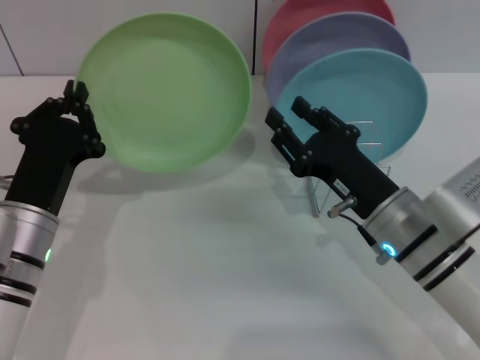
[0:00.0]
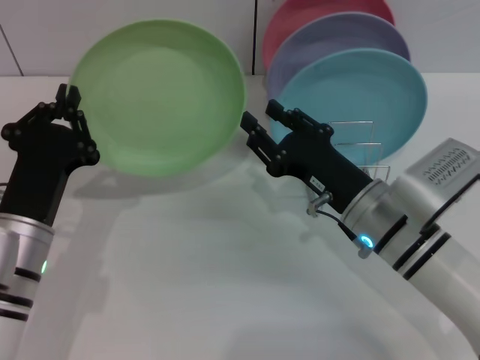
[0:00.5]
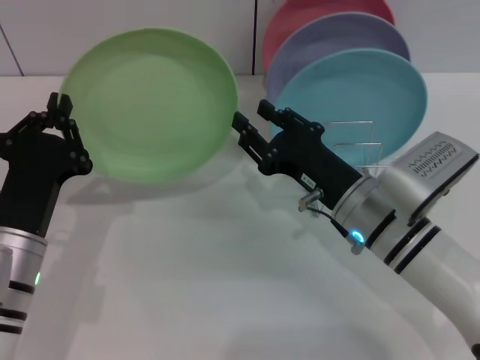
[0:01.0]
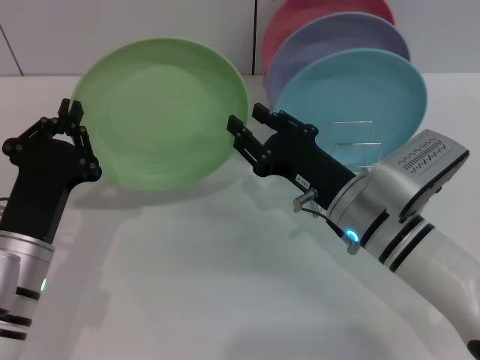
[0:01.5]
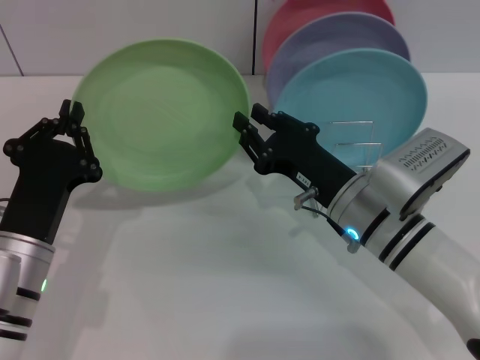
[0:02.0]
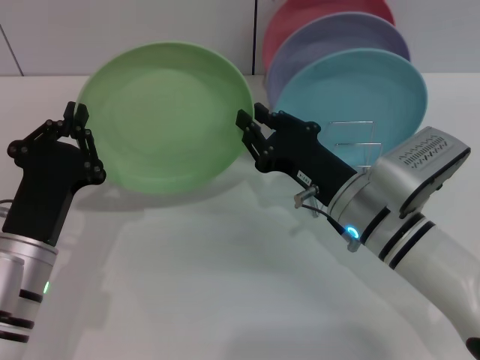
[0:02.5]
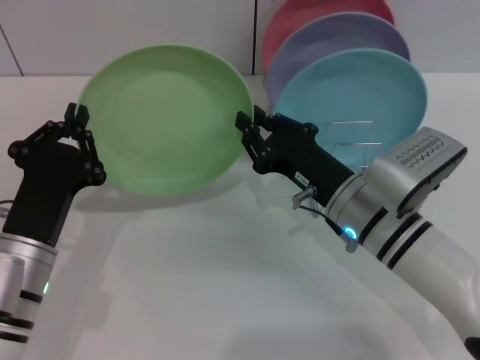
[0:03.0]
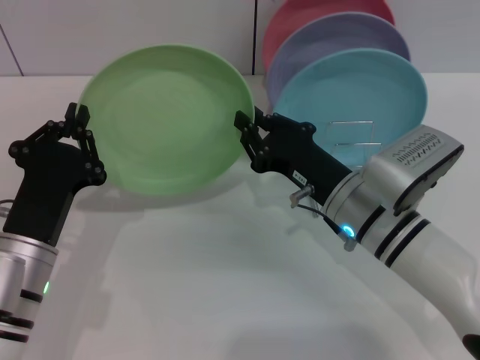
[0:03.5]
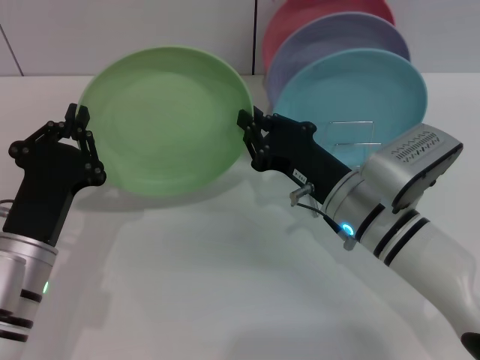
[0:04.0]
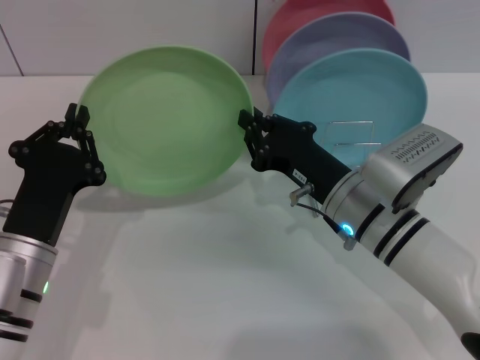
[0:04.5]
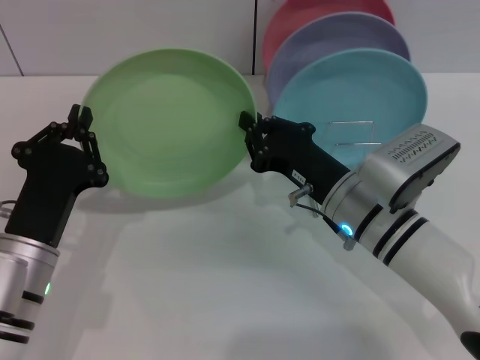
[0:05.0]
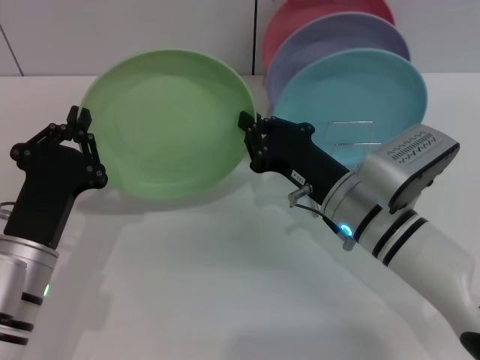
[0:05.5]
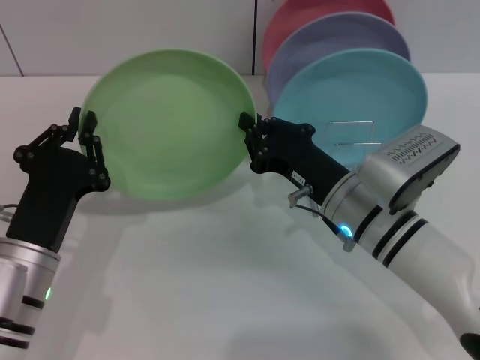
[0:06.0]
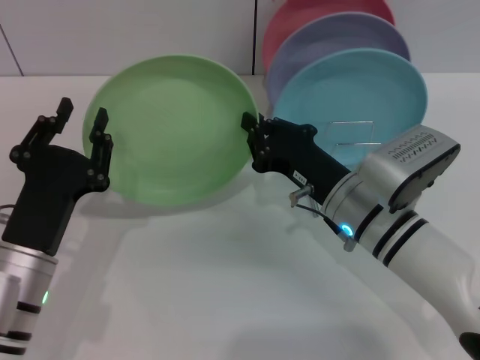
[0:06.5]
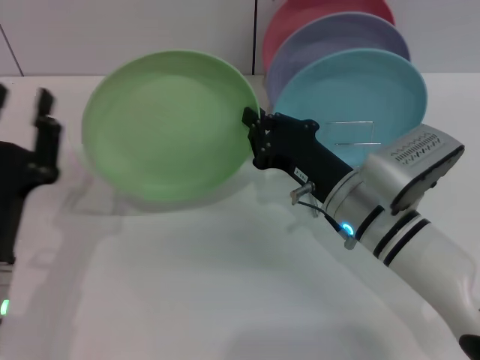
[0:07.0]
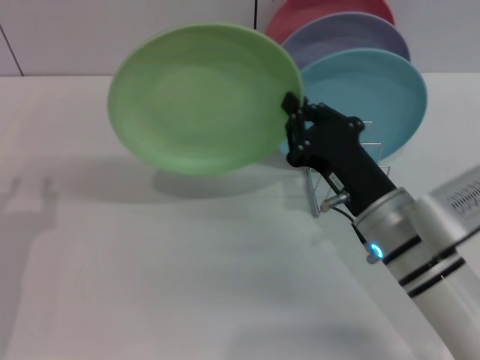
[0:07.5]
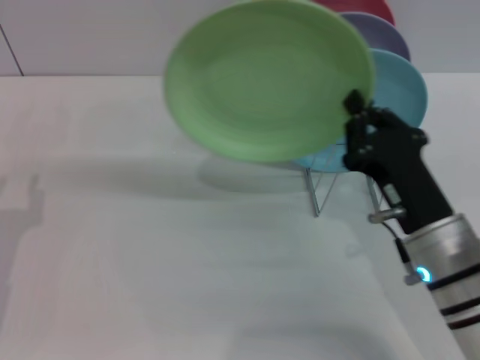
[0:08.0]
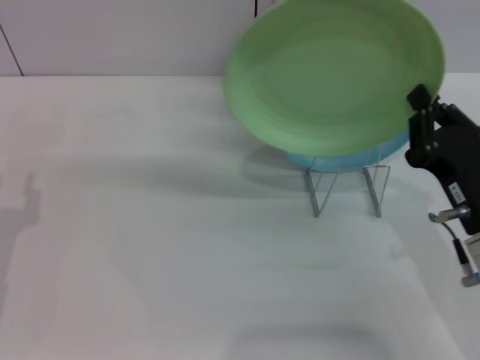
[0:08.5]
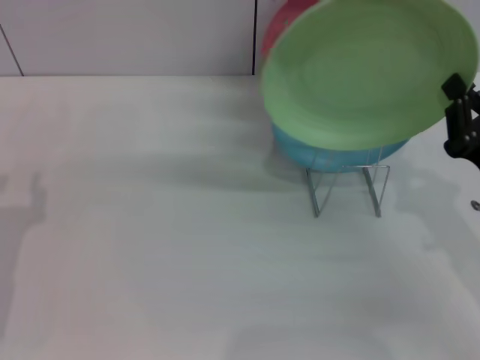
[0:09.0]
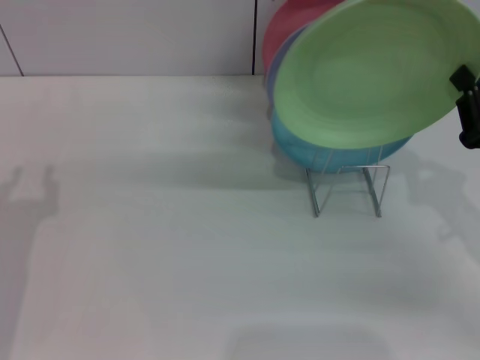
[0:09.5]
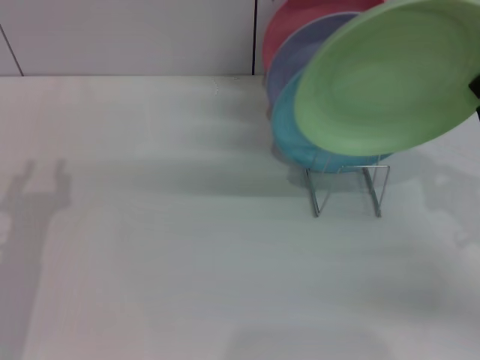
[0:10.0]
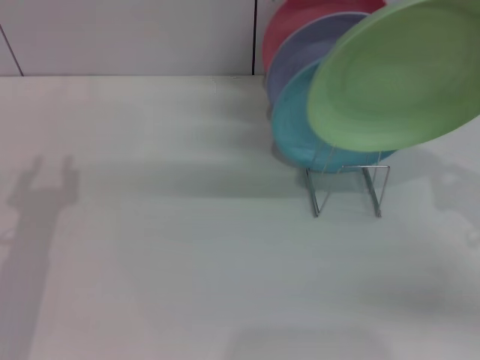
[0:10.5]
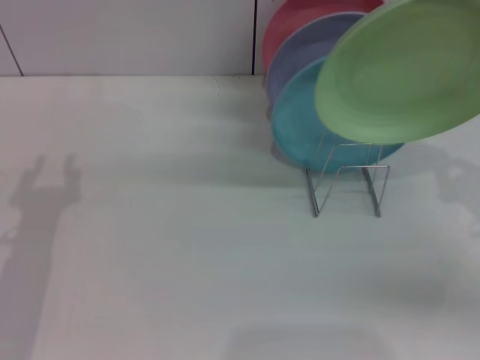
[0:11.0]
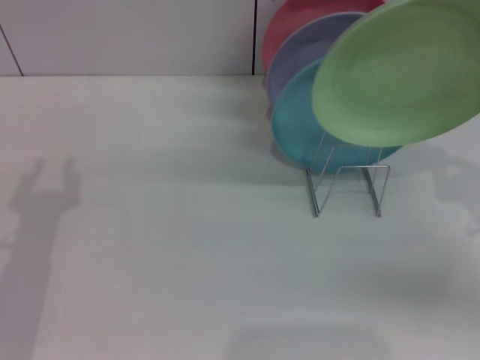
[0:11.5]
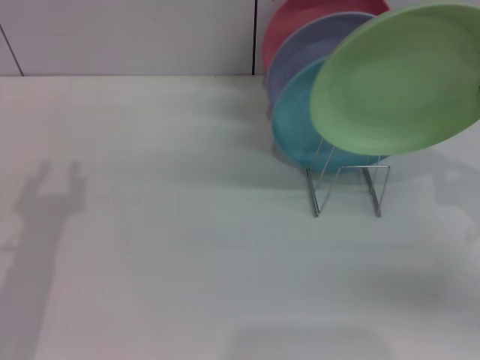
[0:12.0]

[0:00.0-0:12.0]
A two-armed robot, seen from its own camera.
Task of the whole recording: Grip the plate with one hand, pass it to the other, then set it on the shelf.
Step, 0:00.0 to 0:06.5: Pass the plate from the left gripper to the right gripper.
0:02.0 to 0:04.0: The right gripper closes.
0:04.0 to 0:06.0: Neither gripper changes place.
0:06.0 to 0:08.0: The left gripper shifts approximately 10 cm to the left, and opens up, while the right gripper shifts about 5 cm backward.
0:08.0 to 0:10.0: The right gripper heads to the right, covering some 15 cm.
0:10.0 to 0:12.0: There are only small adjustments of the grippers.

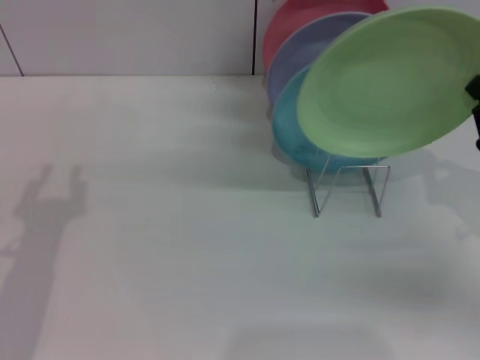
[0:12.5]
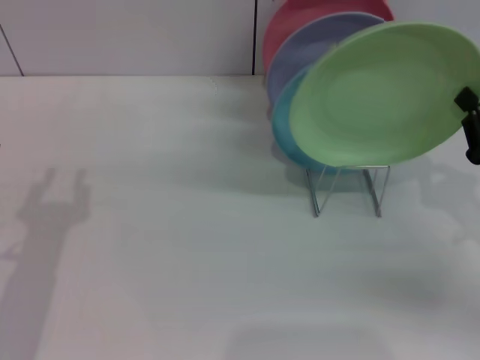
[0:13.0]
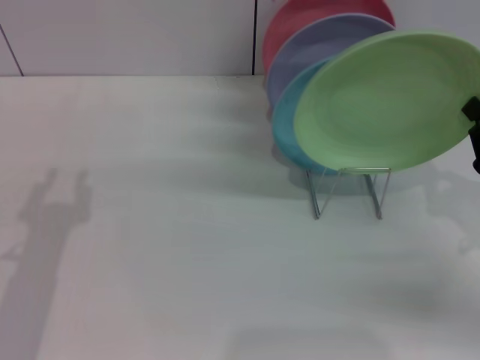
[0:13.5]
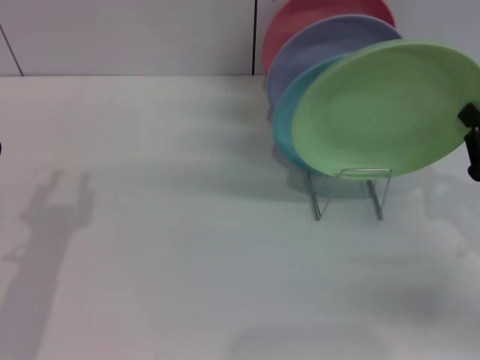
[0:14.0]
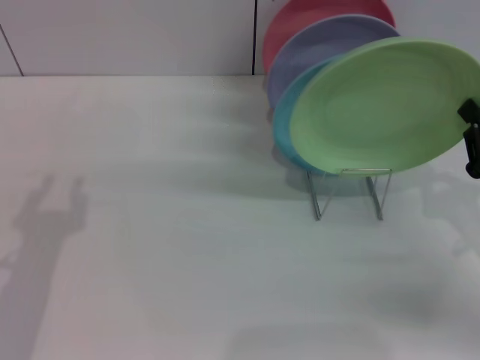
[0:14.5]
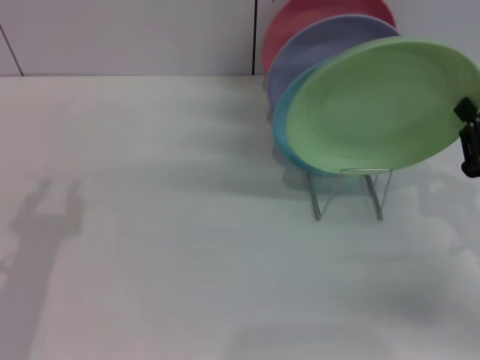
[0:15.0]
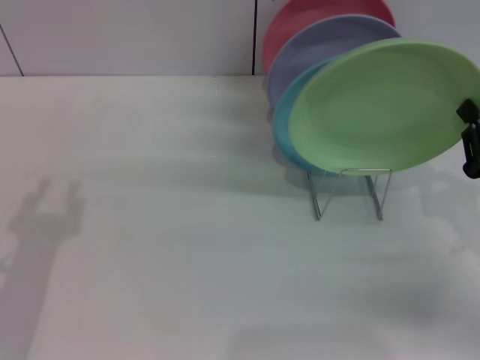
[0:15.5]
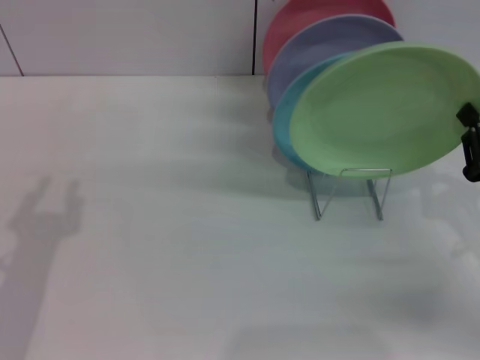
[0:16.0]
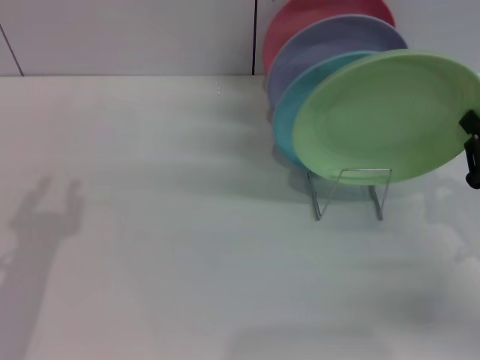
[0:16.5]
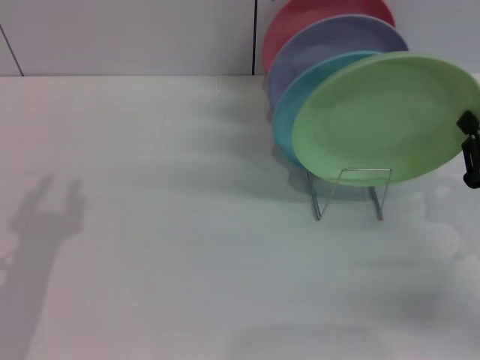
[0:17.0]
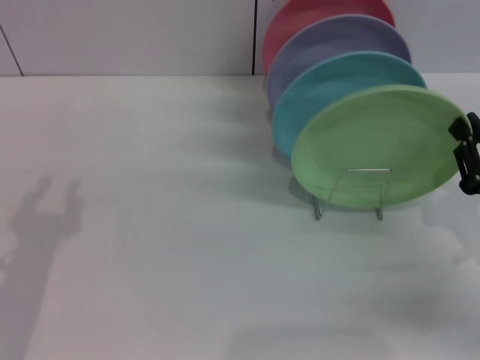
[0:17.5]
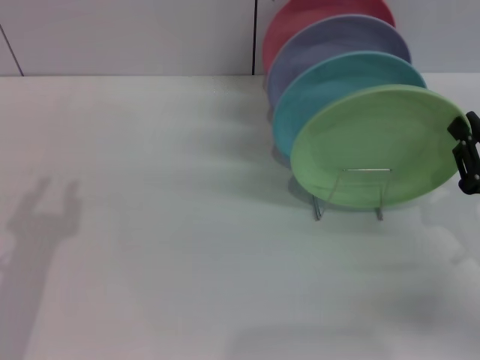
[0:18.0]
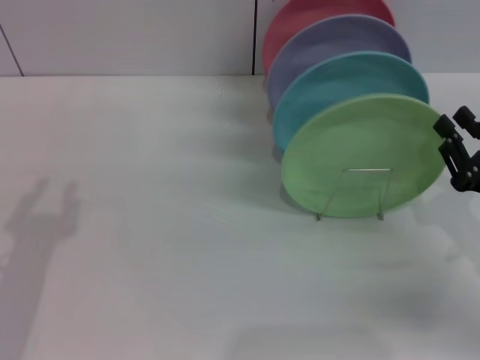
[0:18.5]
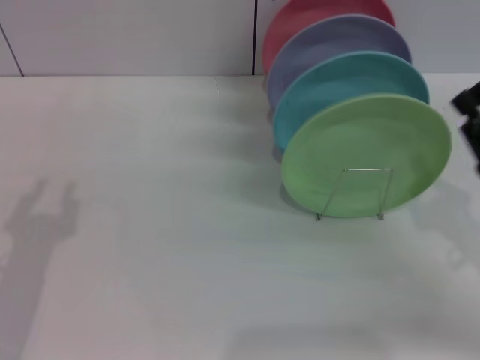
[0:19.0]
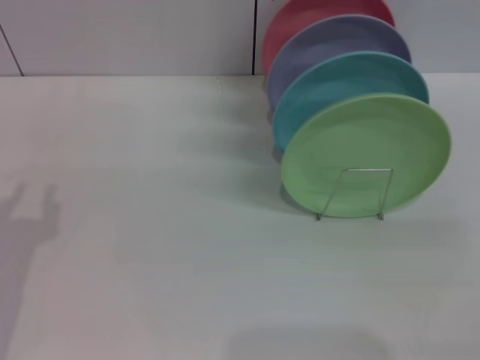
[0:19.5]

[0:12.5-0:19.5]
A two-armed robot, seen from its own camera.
Task of the whole recording: Grip the plate with one hand, pass it to the other, then set it on the shelf.
Step, 0:12.5 to 0:18.5: Place the plate on the shelf with the right gripper.
0:12.5 to 0:14.5: The grippers make only small movements.
0:14.5 to 0:17.5: The two grippers keep their place.
0:17.5 to 0:19.5: The right gripper heads to the right, covering approximately 5 cm, and opens its fingers.
